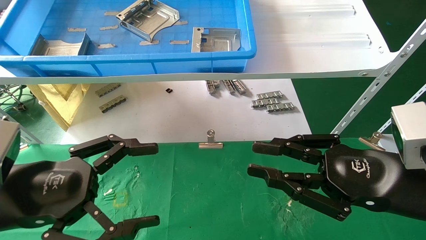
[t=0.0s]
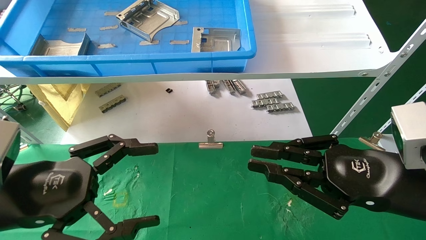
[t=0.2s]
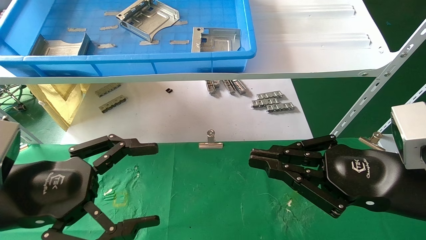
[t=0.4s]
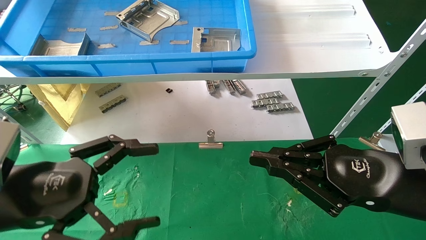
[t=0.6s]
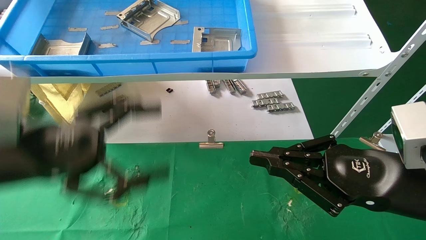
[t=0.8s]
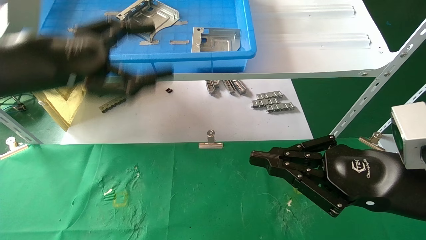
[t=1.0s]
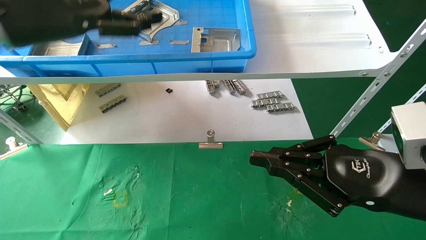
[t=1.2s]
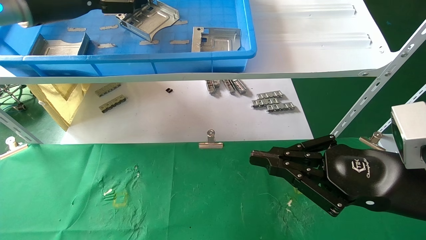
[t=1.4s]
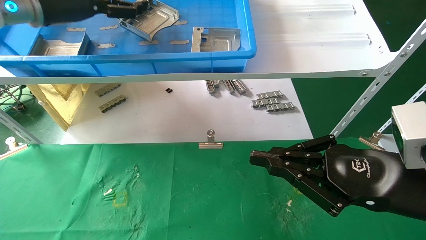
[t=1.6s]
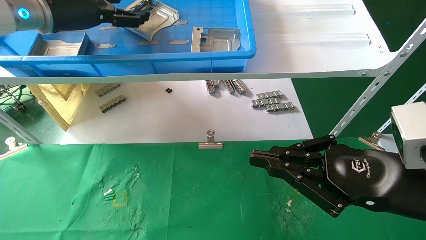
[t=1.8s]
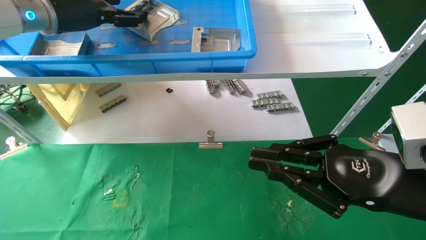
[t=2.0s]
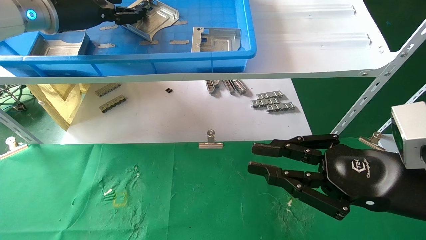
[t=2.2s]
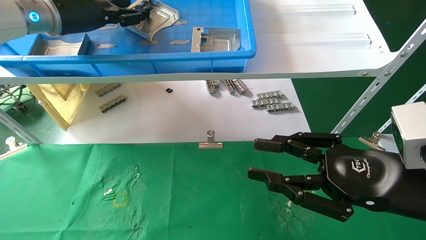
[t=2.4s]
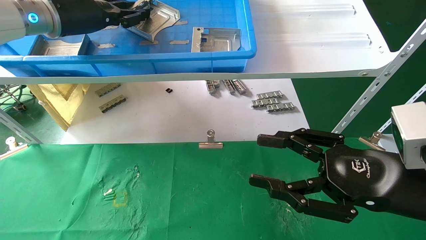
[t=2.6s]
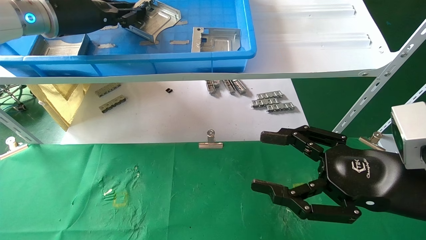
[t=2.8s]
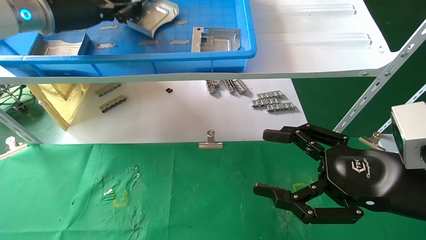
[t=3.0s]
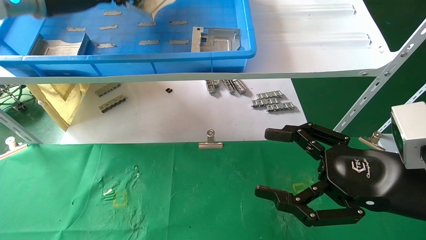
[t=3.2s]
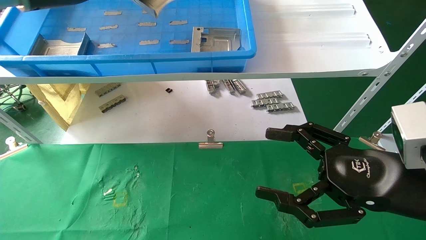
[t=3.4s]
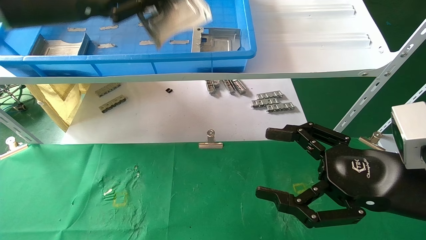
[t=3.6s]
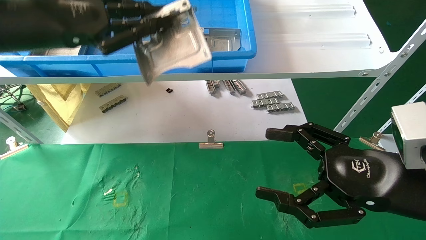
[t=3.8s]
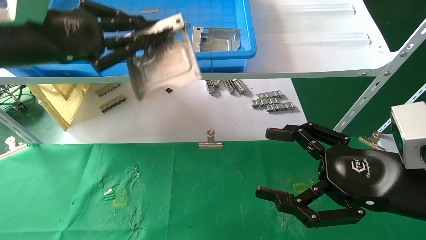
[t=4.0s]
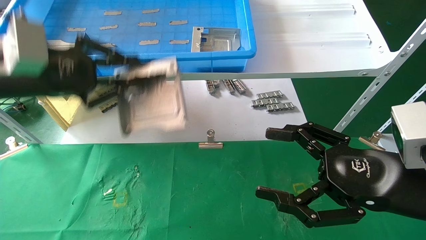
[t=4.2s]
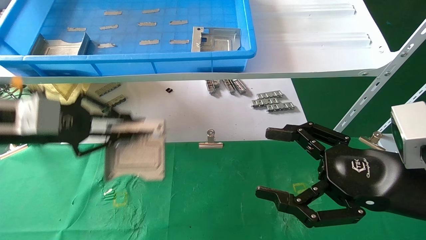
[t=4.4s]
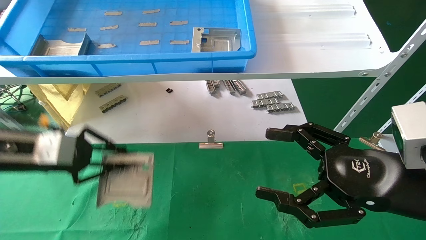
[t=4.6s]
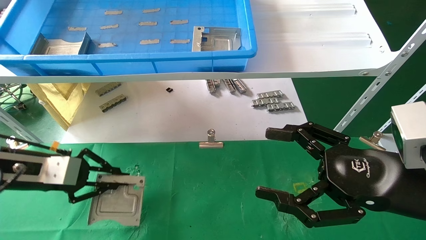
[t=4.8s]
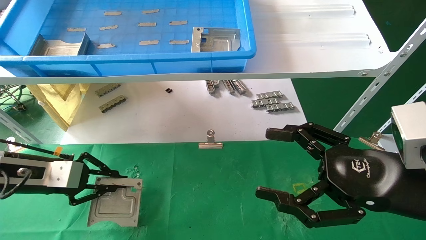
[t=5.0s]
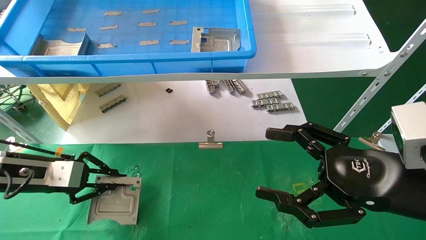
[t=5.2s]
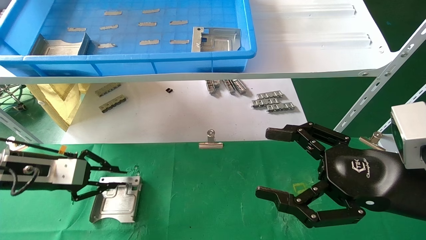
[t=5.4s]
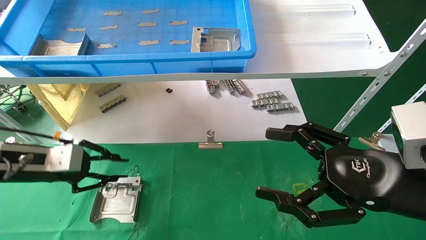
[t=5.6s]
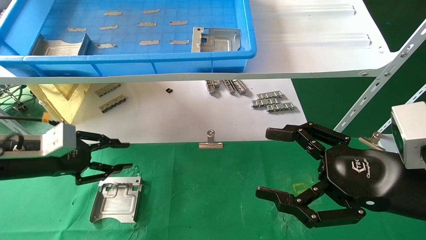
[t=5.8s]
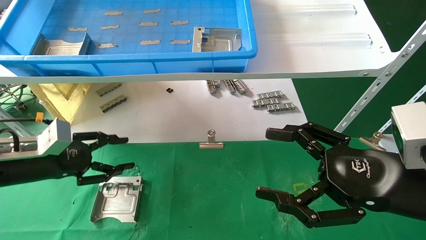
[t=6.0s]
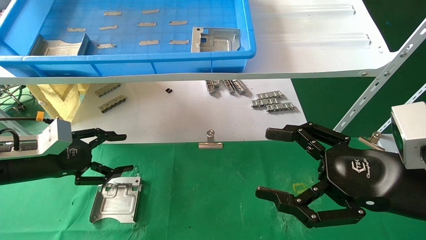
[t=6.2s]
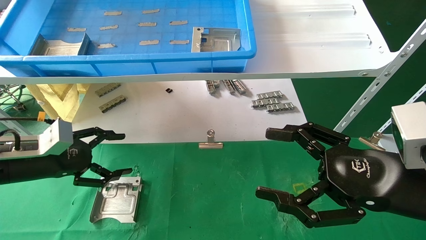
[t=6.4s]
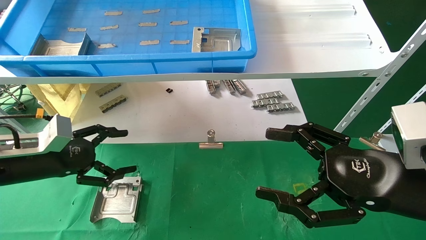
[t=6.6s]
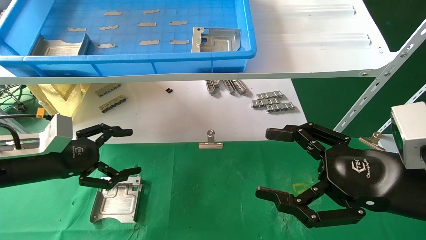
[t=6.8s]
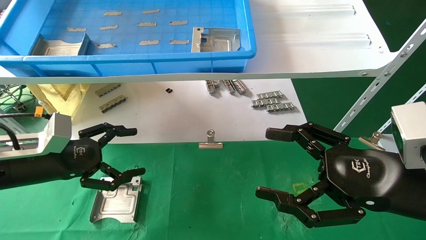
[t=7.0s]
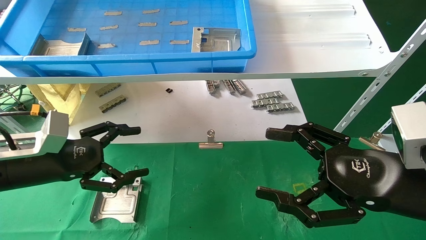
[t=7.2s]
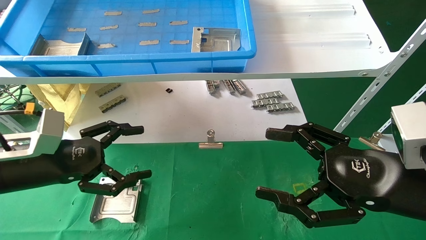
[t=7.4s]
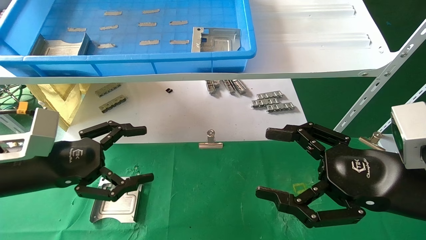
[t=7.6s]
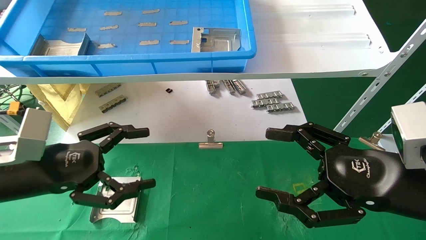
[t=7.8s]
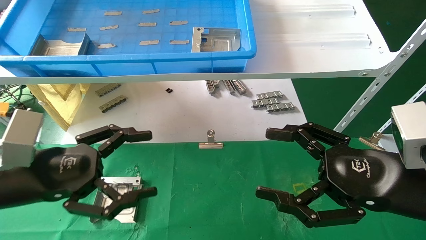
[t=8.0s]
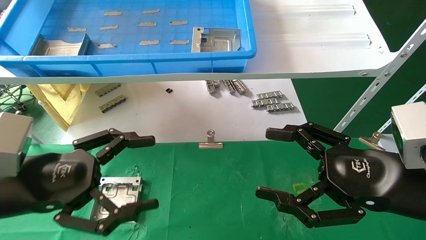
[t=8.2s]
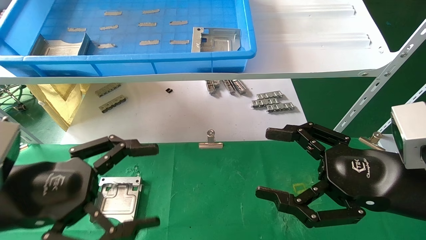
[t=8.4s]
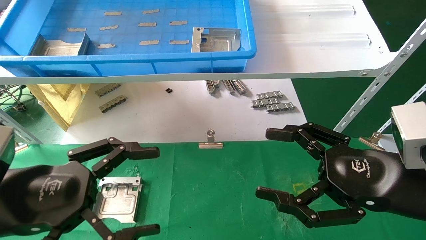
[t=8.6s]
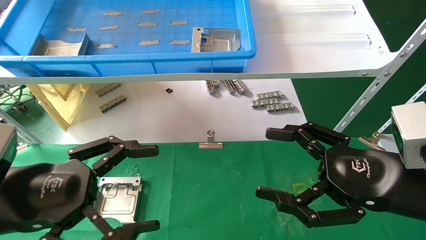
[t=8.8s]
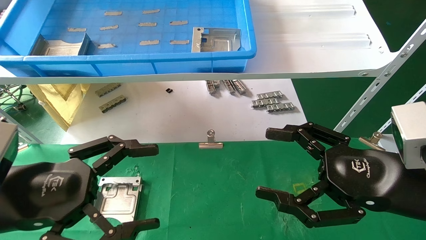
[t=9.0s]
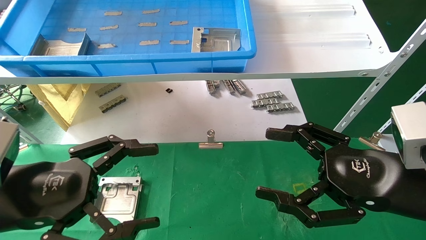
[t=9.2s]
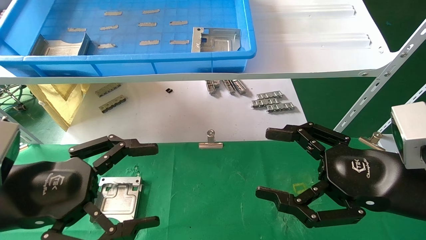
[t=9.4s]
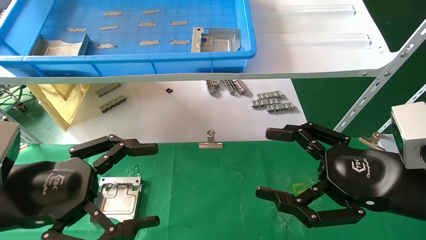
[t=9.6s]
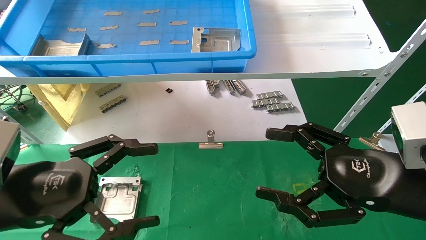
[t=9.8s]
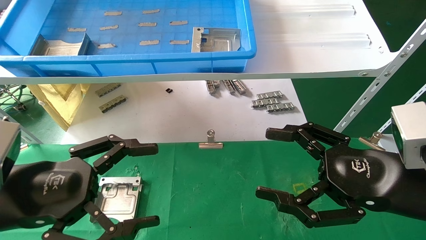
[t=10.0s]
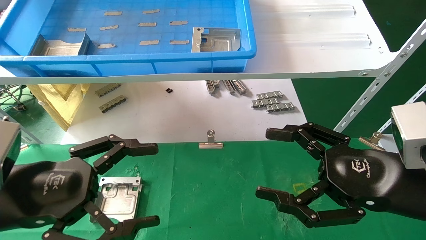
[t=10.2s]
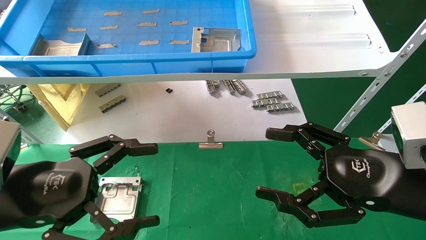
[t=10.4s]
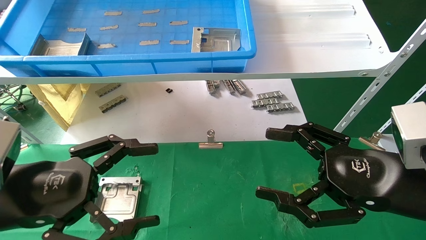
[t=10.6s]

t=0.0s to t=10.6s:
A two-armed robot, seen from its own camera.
Task of the whole recording: use the mechanical arm to pick up the parts and place them on the table.
Step, t=1.2s to t=3.0s: Pick up the hard drive bracket from the feeding area.
Step, t=3.2s to t=5.6s: Place the hard drive bracket into the box.
t=0.0s to t=1.6s: The left gripper is displaced upward and forward by roughly 30 cm.
t=1.6s to t=3.0s: The right gripper opens. Meanwhile the left gripper closes its fingers.
t=3.0s to t=4.6s: The left gripper is displaced downward and backward by roughly 25 cm.
t=4.6s to t=6.0s: The left gripper changes place by about 5 cm, and opens up.
t=6.0s to t=7.6s: The left gripper heads backward and to the right, covering approximately 10 cm, and opens up.
t=7.6s to t=9.0s: The left gripper goes about 10 cm backward.
t=9.0s to t=10.6s: Both grippers stay about where they are.
